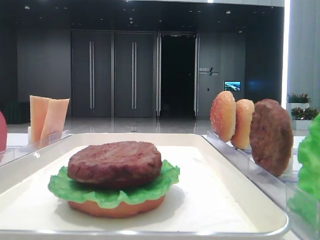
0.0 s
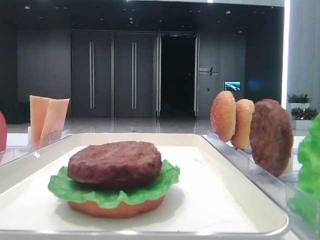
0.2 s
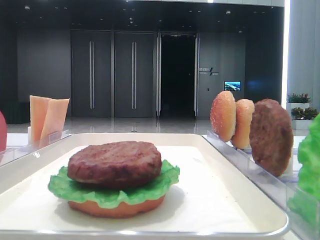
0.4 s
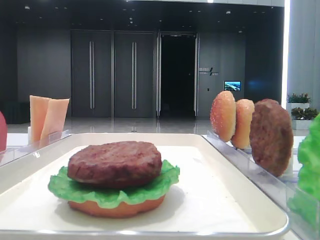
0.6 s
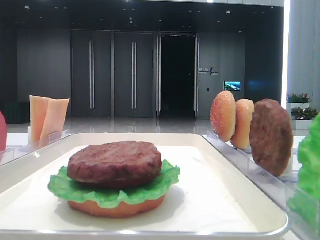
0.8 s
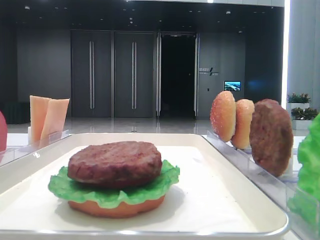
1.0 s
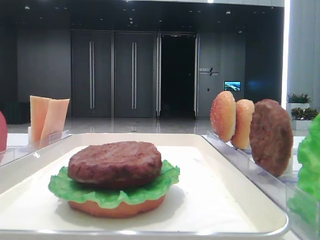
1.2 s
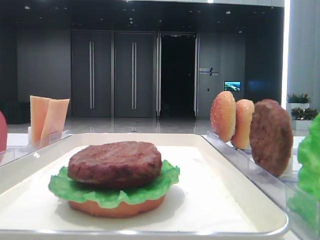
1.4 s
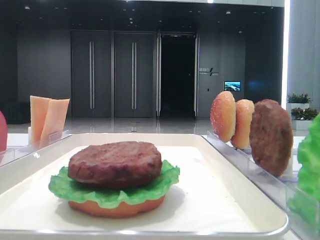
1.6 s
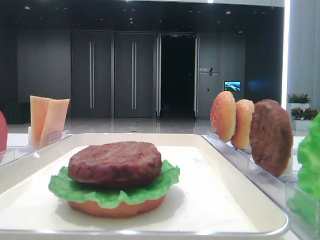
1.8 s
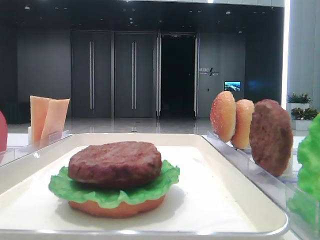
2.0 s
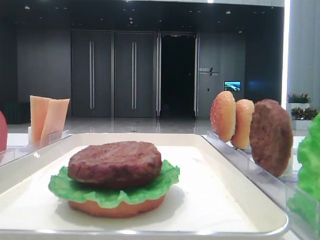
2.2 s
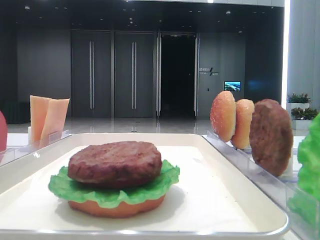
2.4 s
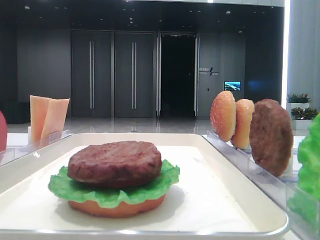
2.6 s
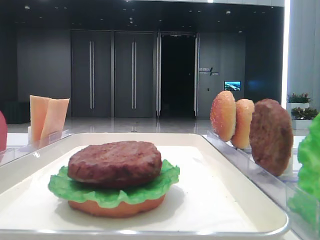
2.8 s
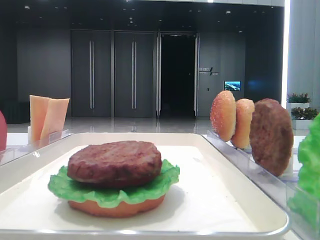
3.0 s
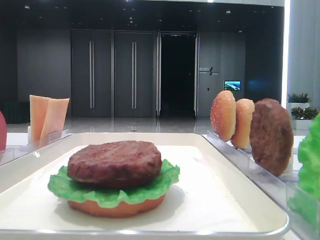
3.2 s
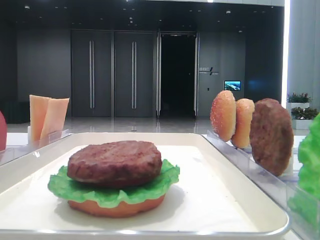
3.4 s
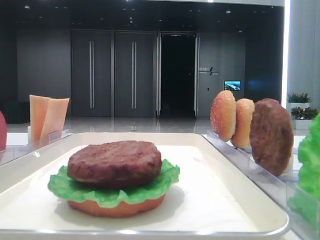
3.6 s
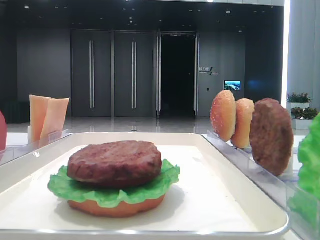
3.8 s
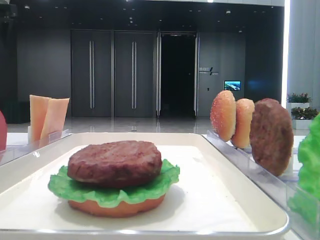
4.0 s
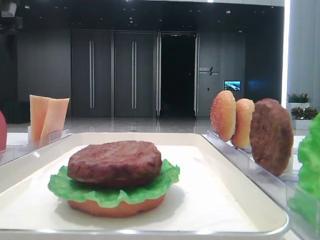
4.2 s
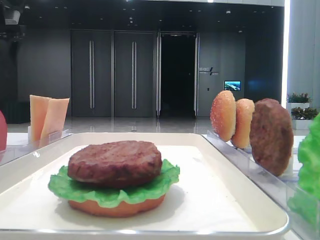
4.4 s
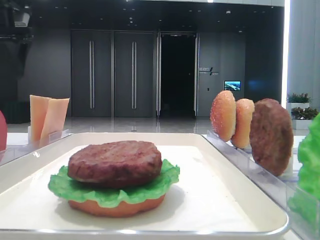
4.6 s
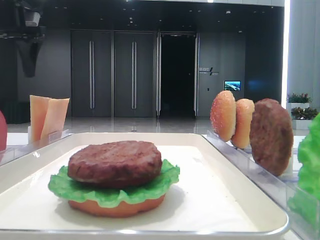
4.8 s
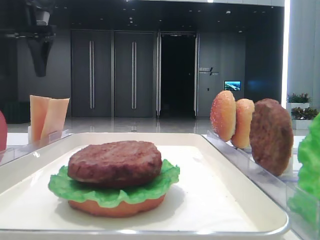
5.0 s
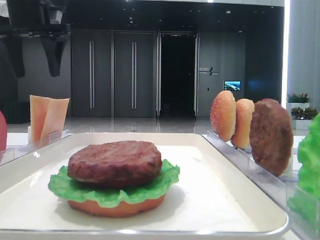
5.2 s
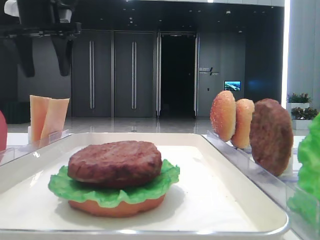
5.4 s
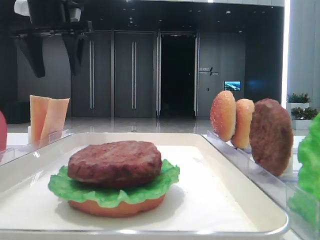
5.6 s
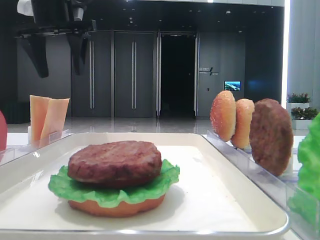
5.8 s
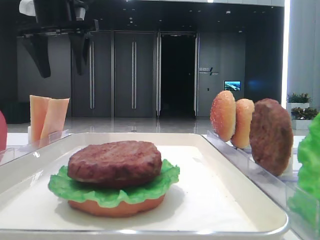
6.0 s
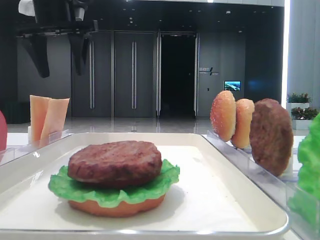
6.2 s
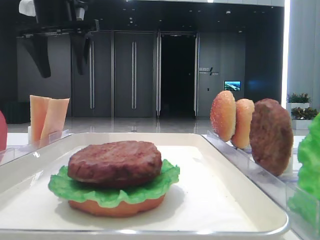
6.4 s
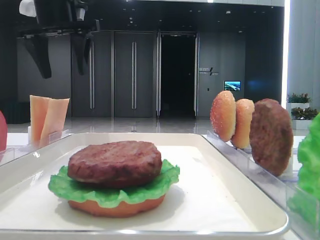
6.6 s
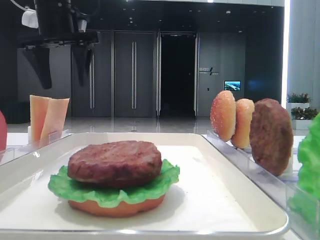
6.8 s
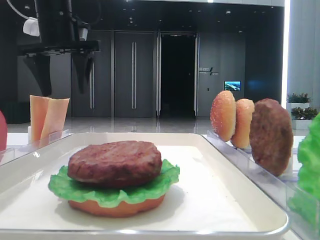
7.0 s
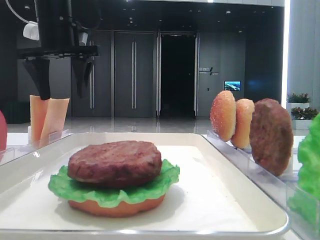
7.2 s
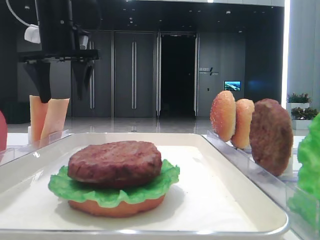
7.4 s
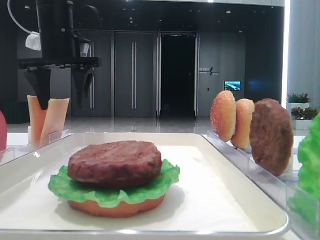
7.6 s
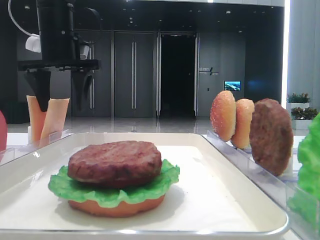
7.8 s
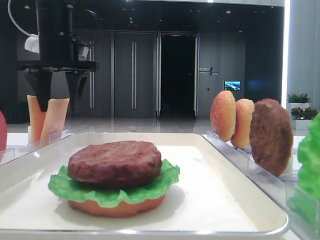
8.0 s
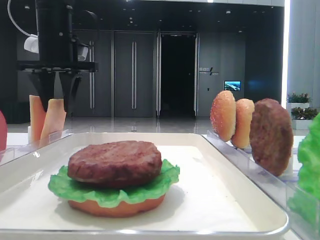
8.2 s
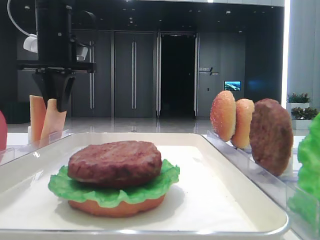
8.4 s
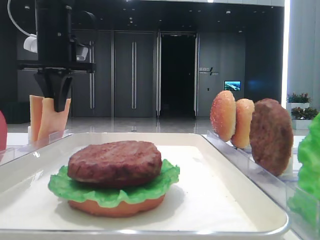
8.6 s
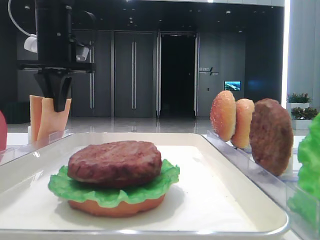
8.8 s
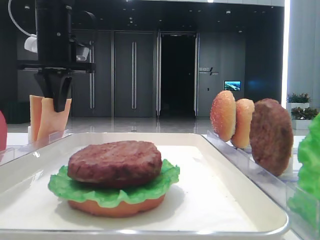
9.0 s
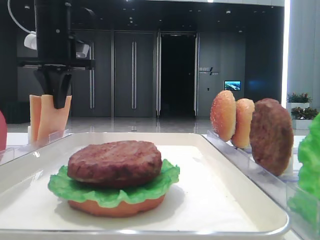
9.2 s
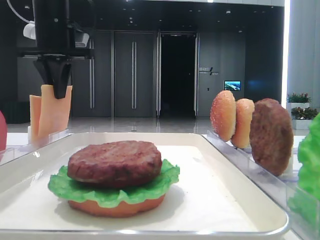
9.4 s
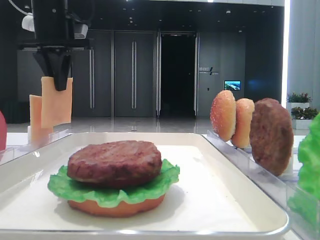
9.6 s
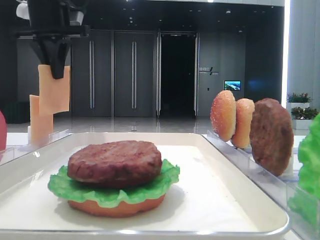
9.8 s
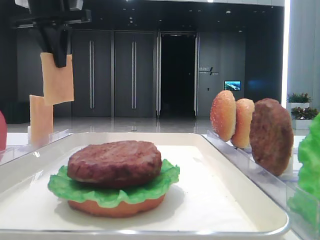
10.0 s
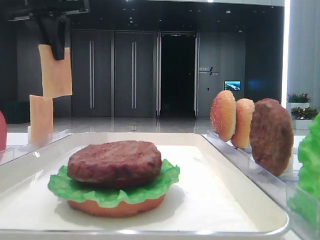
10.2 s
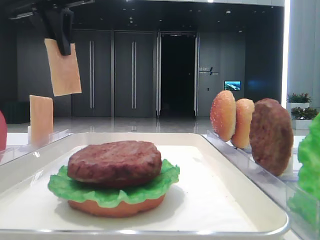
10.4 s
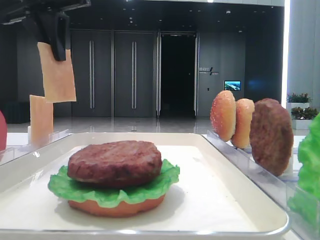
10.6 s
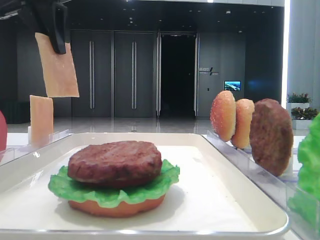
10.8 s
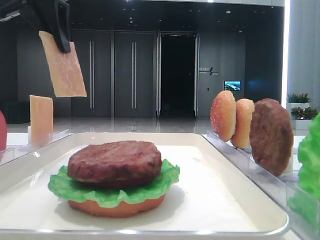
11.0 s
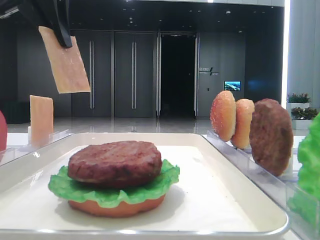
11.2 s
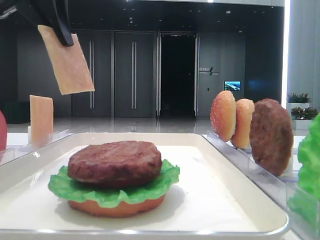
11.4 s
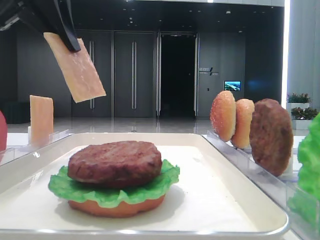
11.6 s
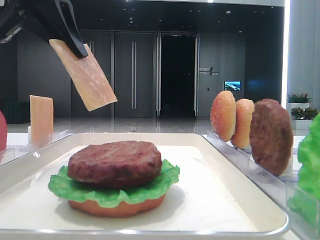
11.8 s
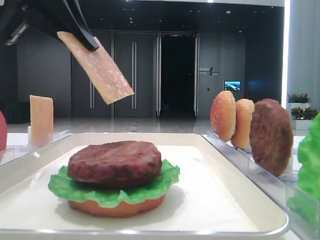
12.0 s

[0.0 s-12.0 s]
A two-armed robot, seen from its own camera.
Step, 0.0 to 9.0 s: Pick up the cheese slice with the left hand.
1.6 to 3.0 s: The left gripper goes about 25 cm forward.
4.4 to 6.0 s: The left gripper heads to the right, covering approximately 15 cm.
6.0 to 7.6 s: The left gripper moves downward, roughly 5 cm.
7.6 to 9.0 s: The left gripper closes.
9.0 to 10.4 s: The left gripper moves upward, about 10 cm.
10.4 to 12.0 s: The left gripper shifts roughly 15 cm backward and downward.

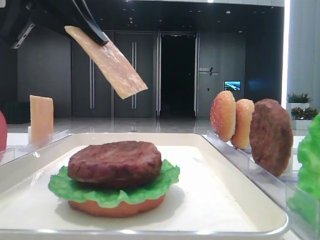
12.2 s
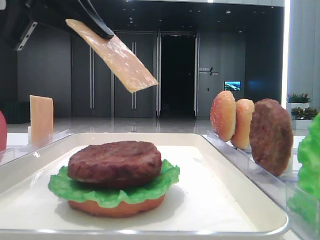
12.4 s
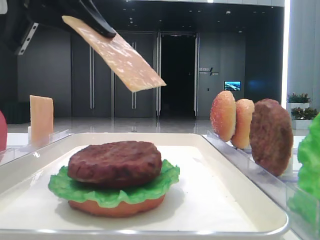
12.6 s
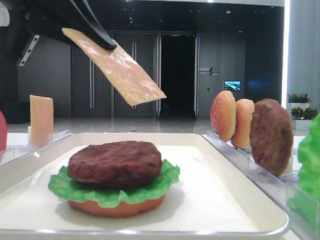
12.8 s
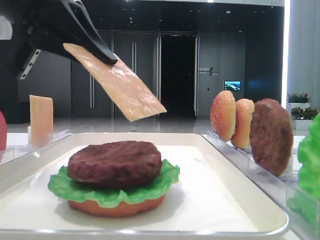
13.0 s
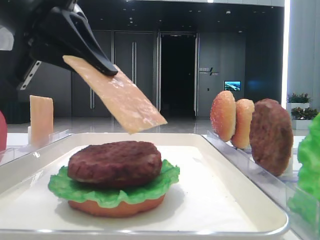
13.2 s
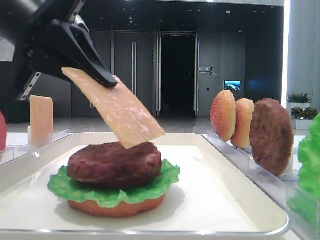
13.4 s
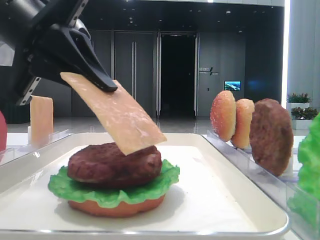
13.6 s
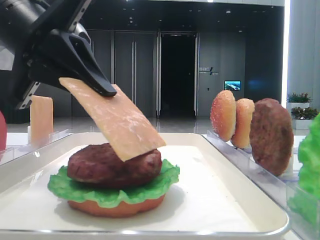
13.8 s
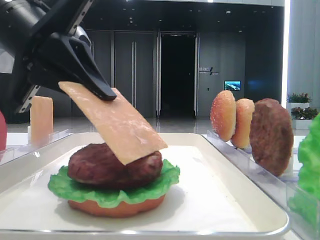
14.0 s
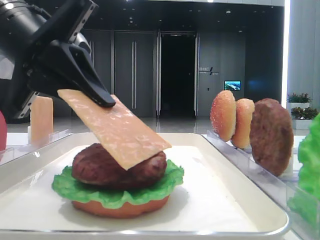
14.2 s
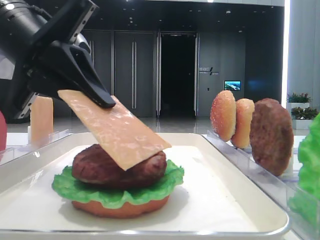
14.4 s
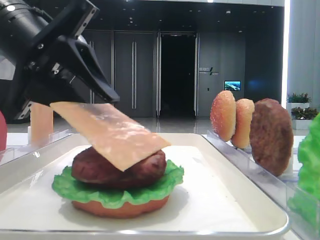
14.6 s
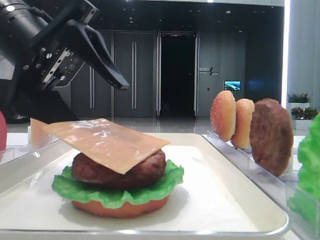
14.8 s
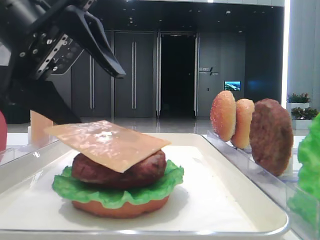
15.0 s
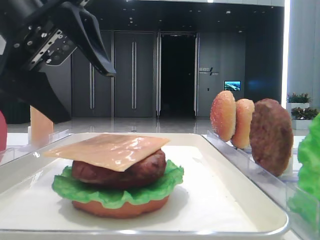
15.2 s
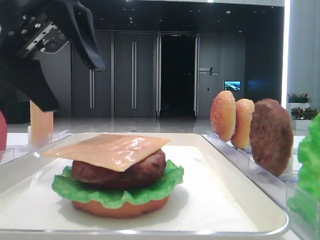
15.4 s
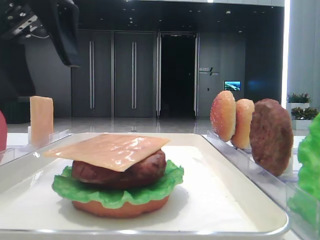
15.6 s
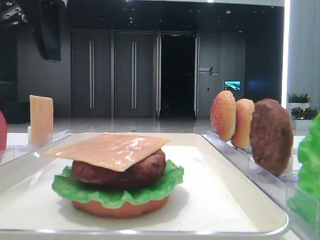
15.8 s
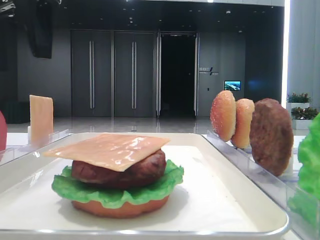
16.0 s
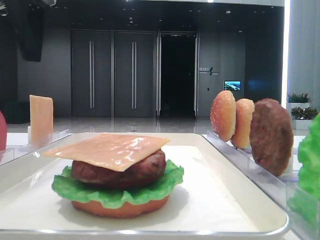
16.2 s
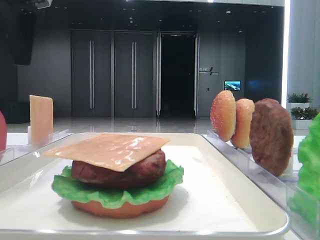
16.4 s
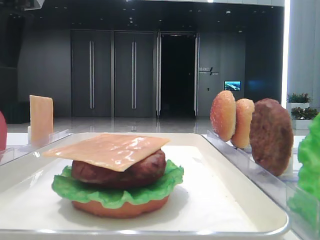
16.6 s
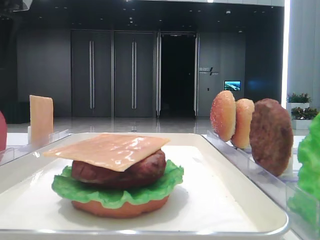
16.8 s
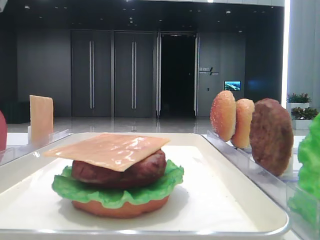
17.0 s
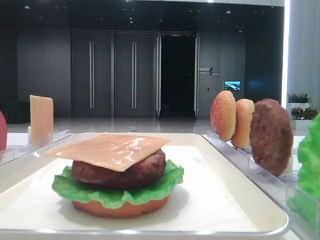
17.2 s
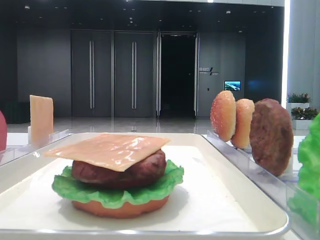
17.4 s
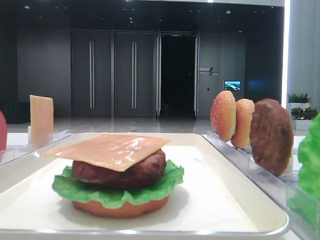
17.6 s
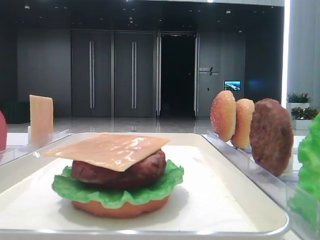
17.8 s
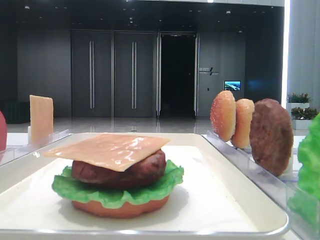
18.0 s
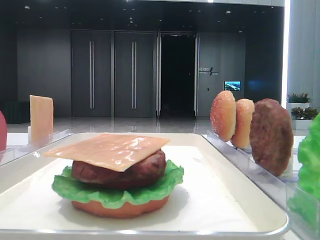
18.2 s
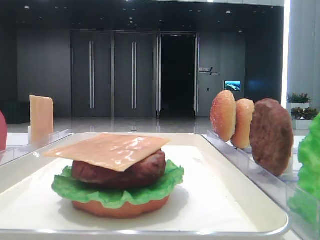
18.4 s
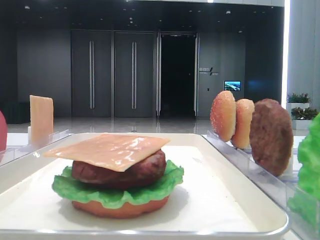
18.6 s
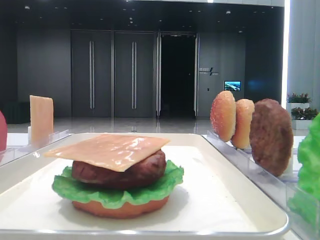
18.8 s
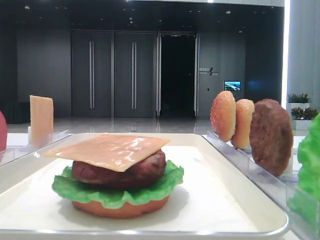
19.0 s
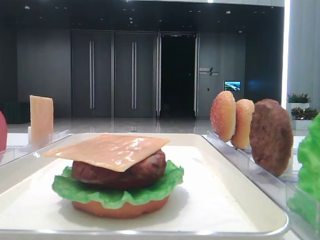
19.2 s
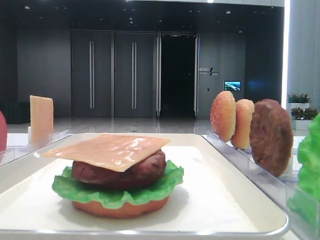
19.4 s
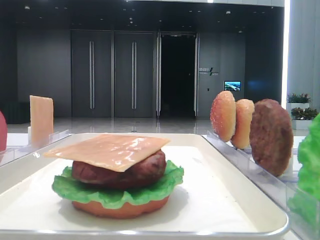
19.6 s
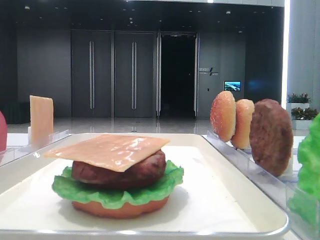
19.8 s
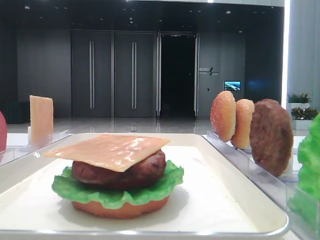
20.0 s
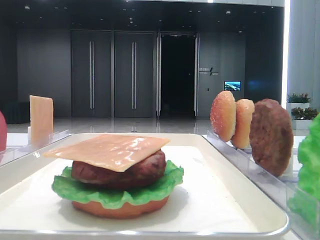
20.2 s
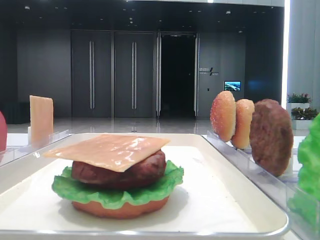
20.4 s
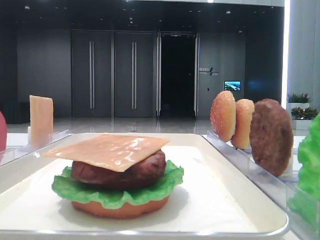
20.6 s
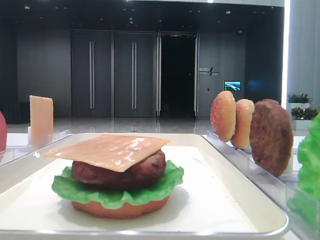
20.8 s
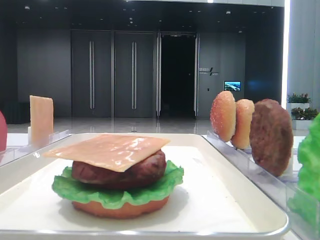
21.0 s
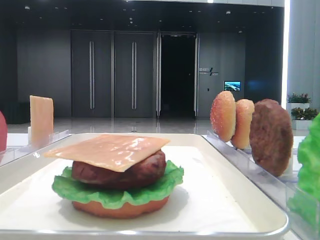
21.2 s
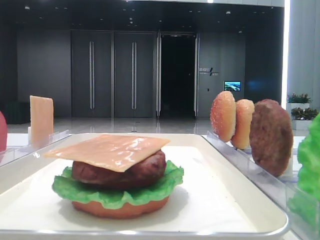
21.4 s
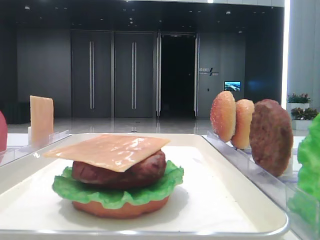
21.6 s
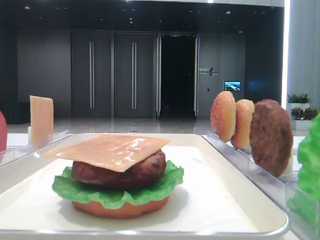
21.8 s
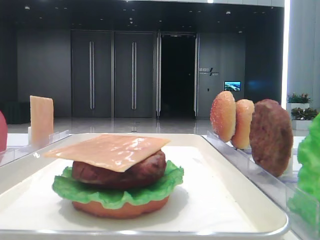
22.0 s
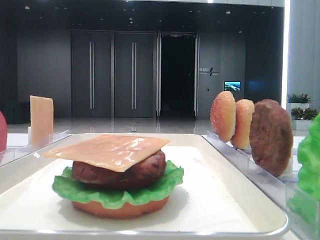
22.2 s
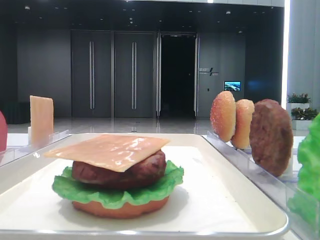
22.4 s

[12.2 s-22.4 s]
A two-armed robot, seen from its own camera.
Step, 12.2 to 15.0 s: Place the cheese slice on the patty with the left hand.
12.2 to 13.6 s: The left gripper heads downward, covering some 5 cm.
13.6 to 15.2 s: The left gripper opens.
15.2 to 16.6 s: The left gripper travels upward and to the left by some 10 cm.
16.6 to 18.0 s: The left gripper goes approximately 15 cm to the left.
